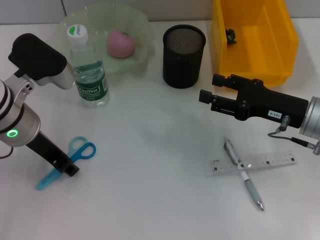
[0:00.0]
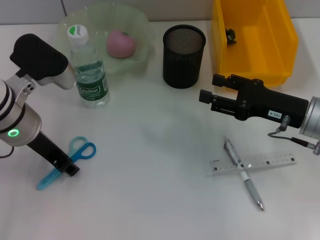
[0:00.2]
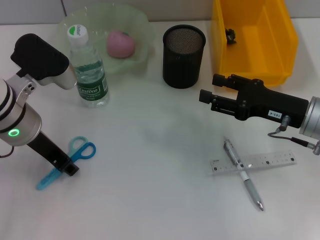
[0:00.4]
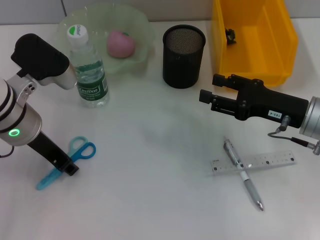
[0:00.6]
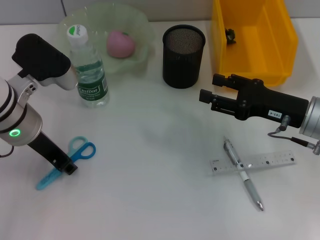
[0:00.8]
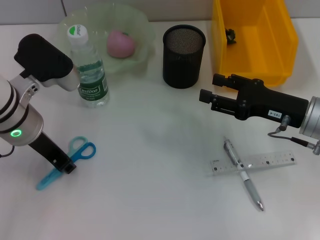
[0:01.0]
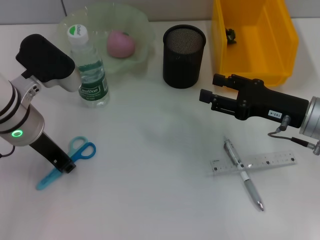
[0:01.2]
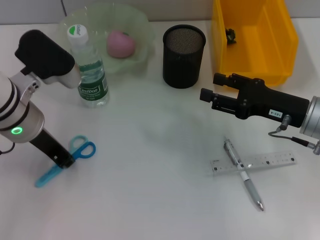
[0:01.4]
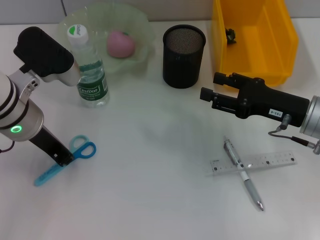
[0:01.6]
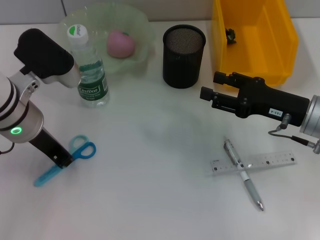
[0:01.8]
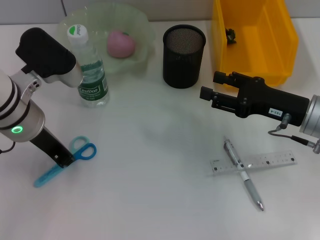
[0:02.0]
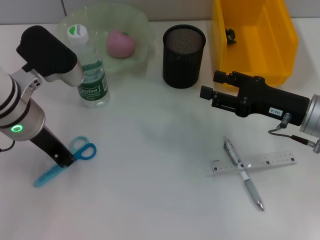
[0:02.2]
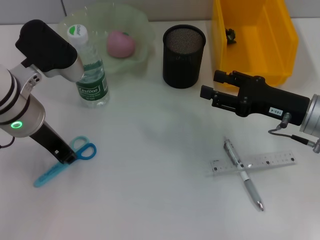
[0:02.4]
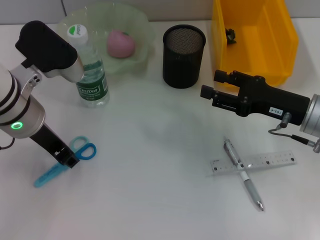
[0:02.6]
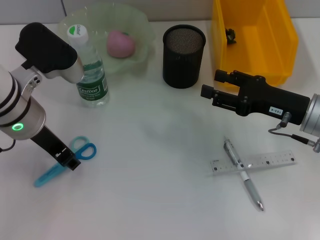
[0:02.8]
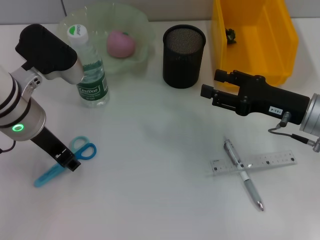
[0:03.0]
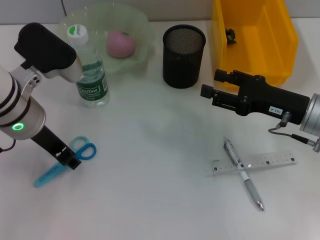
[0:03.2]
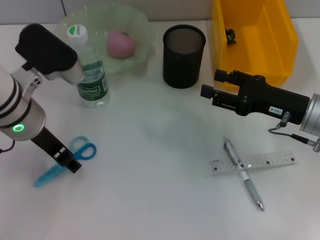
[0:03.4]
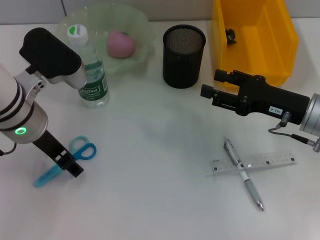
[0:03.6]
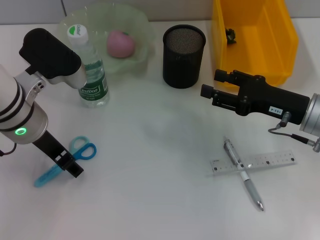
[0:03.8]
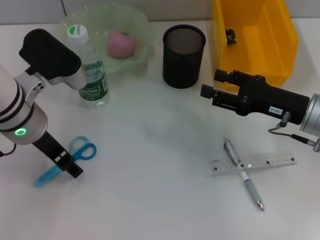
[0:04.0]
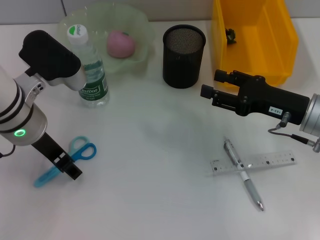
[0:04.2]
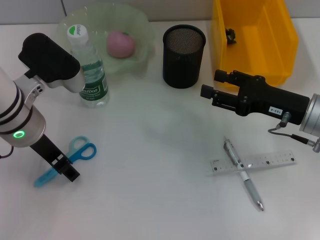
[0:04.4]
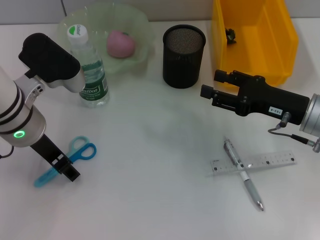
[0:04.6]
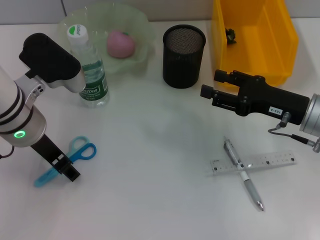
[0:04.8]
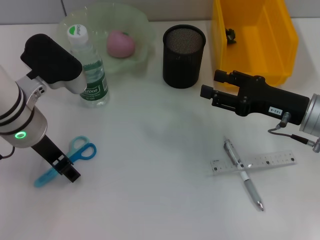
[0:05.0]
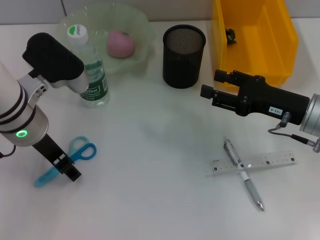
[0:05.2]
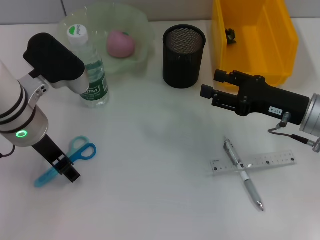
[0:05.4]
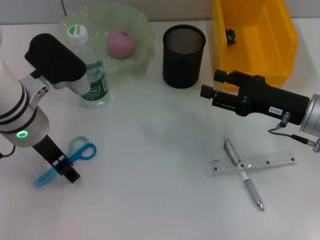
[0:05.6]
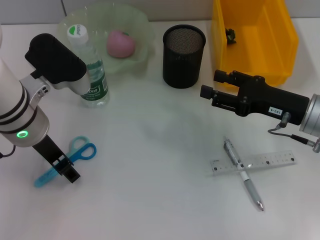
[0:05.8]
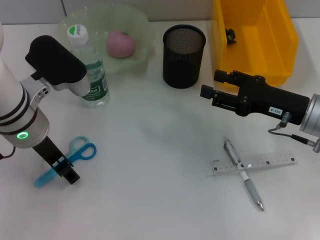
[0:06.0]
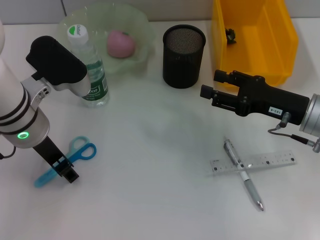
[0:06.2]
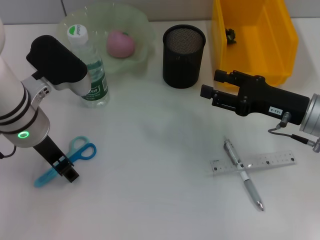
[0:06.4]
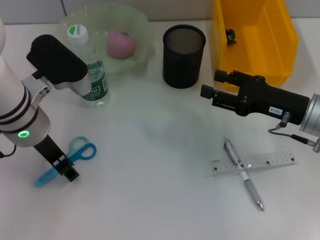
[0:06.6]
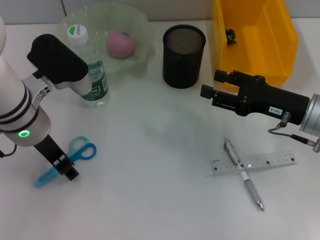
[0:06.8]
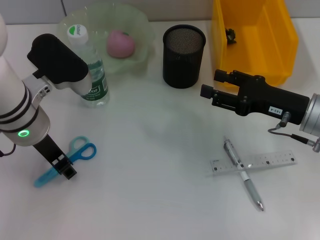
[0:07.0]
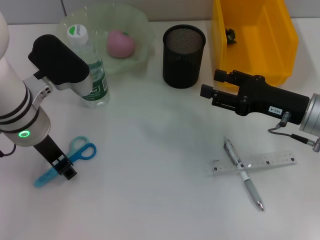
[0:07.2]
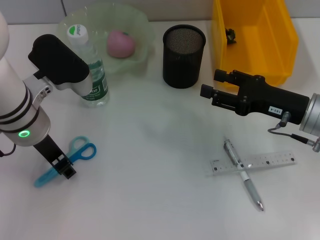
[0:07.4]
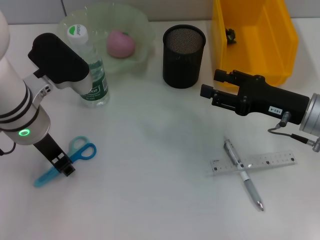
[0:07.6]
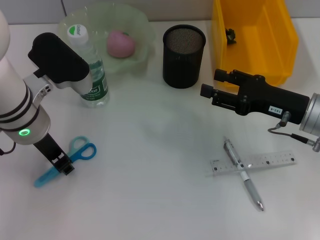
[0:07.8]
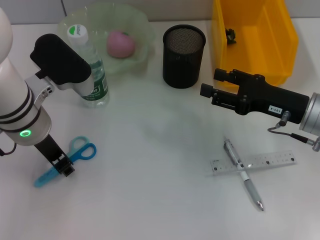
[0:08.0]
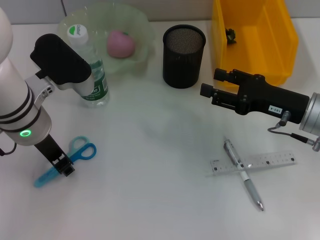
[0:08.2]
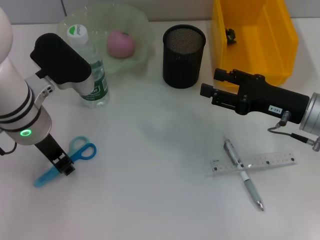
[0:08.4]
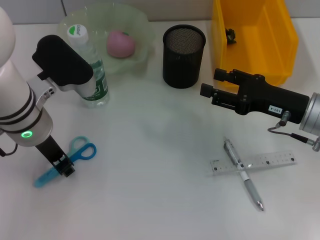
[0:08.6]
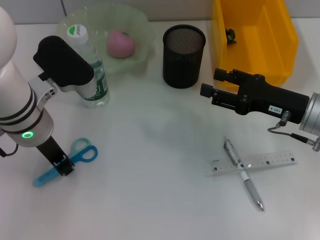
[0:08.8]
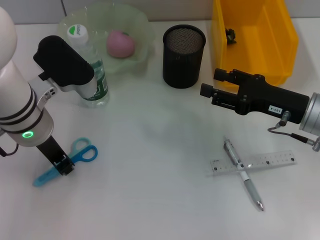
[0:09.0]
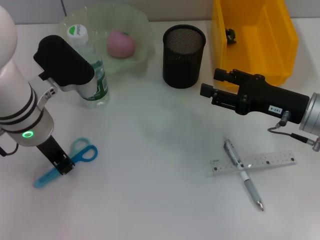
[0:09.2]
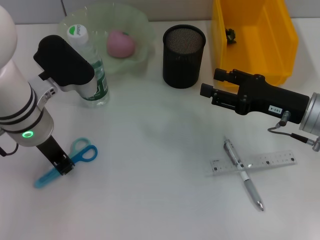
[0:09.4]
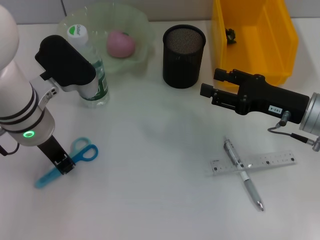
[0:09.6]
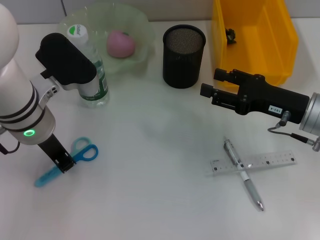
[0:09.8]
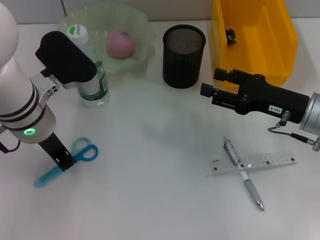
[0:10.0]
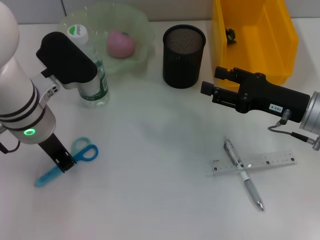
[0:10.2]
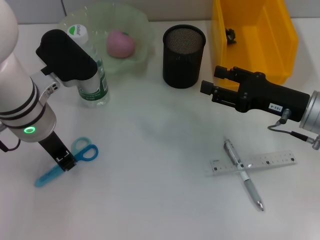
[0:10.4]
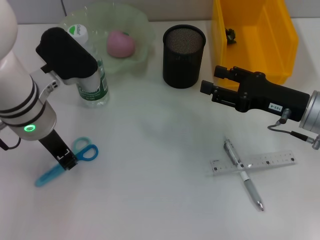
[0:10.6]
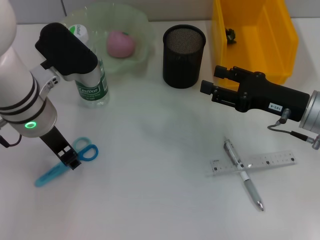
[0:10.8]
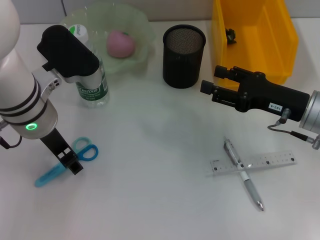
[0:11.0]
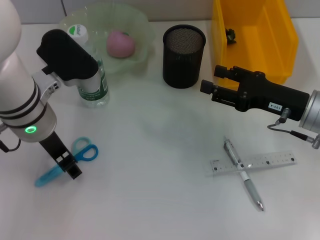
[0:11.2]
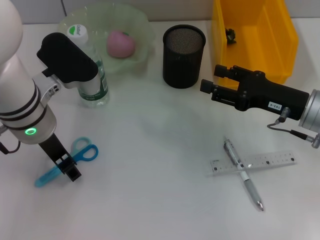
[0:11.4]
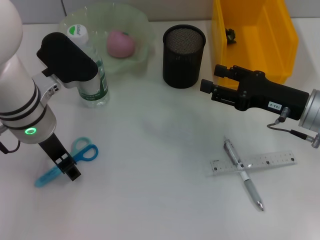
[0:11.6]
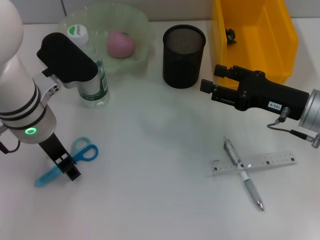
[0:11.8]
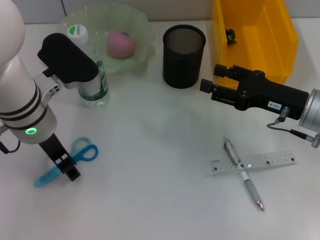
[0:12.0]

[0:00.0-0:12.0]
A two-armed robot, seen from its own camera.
0:00.0 to 0:01.6: The left gripper closes.
0:01.6 to 0:03.0: The left gripper opens up.
0:03.0 to 0:04.4: The left gripper opens.
0:04.4 to 0:06.0: Both grippers stay about where they are.
0:06.0 to 0:07.6: The left gripper closes its fingers.
0:07.6 to 0:10.4: Neither gripper changes place.
0:10.4 to 0:12.0: The left gripper opens up.

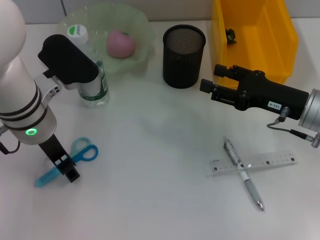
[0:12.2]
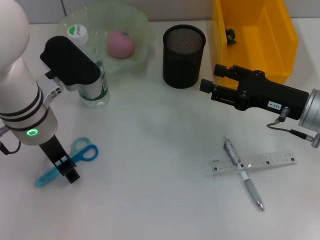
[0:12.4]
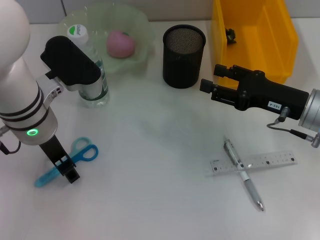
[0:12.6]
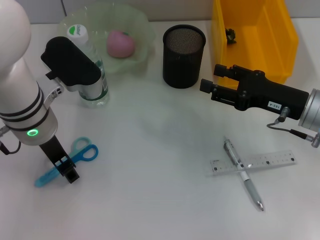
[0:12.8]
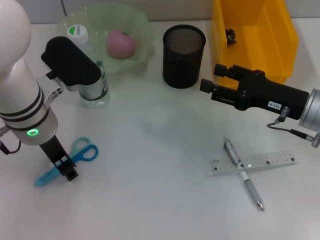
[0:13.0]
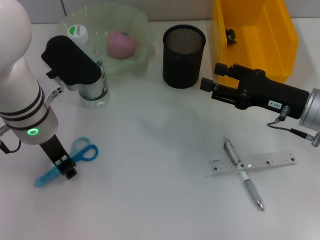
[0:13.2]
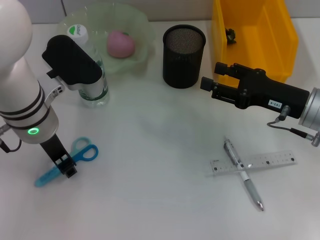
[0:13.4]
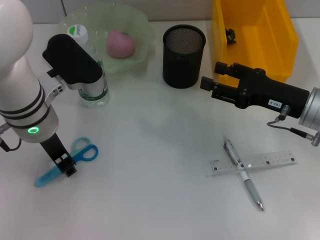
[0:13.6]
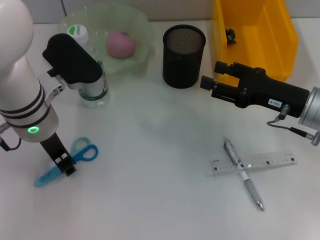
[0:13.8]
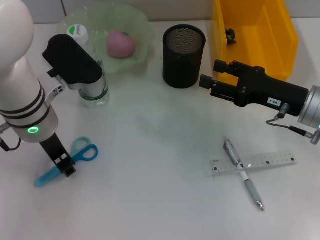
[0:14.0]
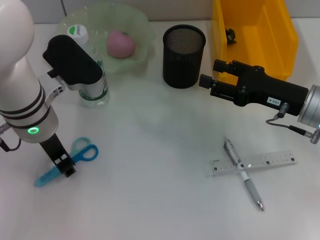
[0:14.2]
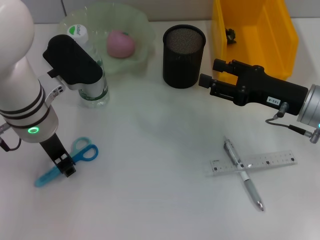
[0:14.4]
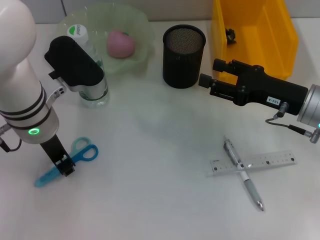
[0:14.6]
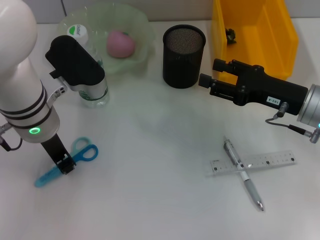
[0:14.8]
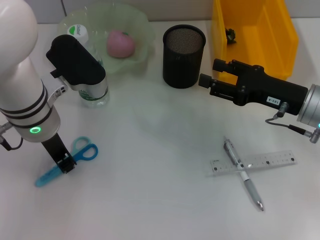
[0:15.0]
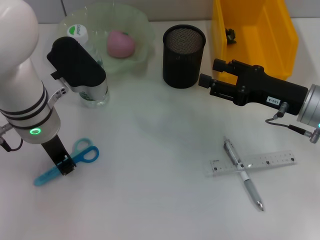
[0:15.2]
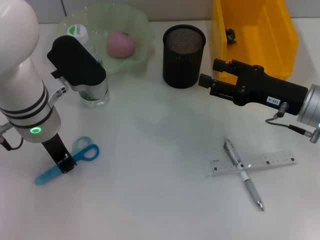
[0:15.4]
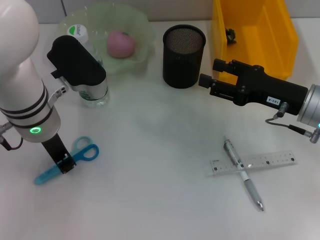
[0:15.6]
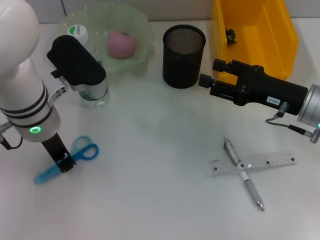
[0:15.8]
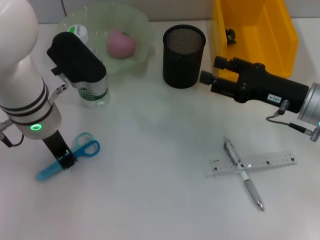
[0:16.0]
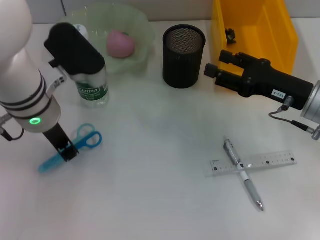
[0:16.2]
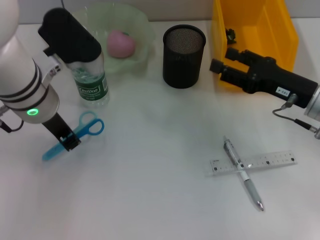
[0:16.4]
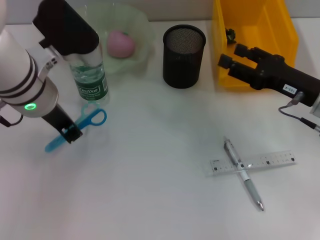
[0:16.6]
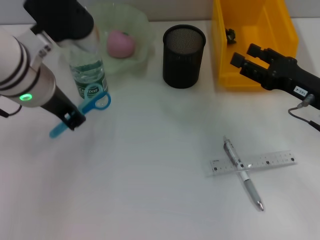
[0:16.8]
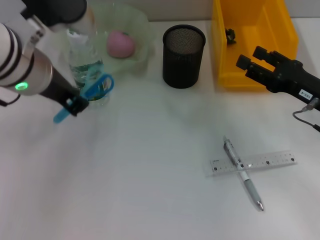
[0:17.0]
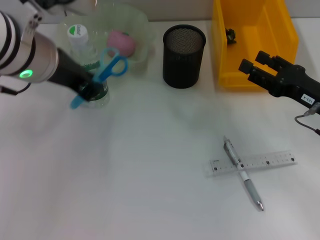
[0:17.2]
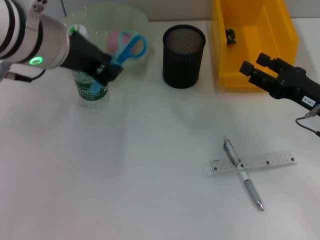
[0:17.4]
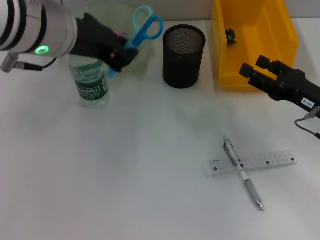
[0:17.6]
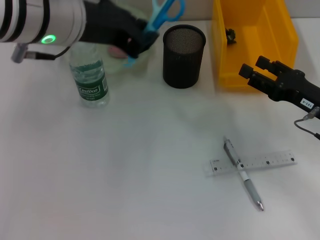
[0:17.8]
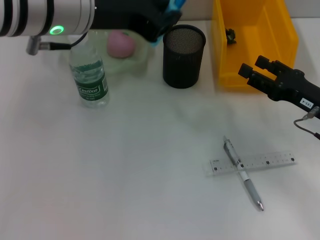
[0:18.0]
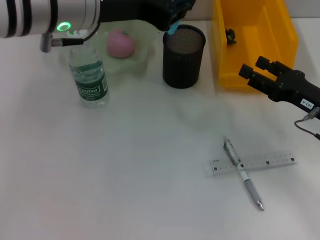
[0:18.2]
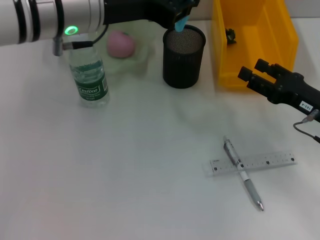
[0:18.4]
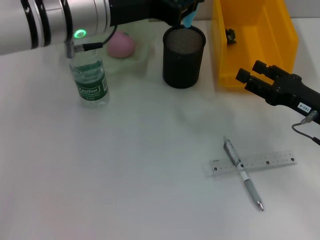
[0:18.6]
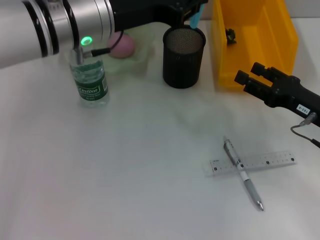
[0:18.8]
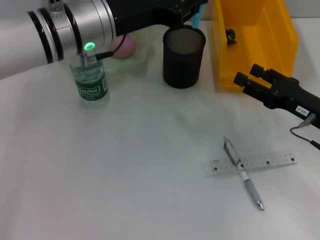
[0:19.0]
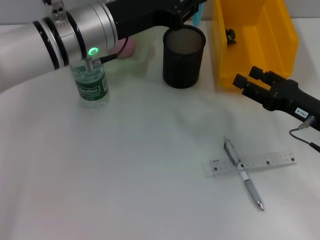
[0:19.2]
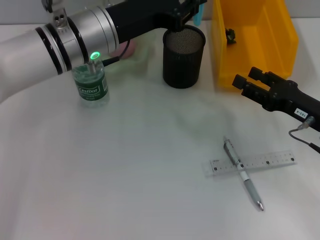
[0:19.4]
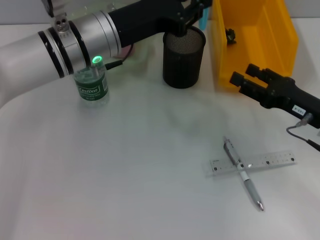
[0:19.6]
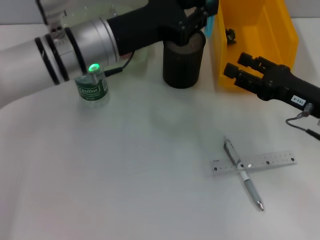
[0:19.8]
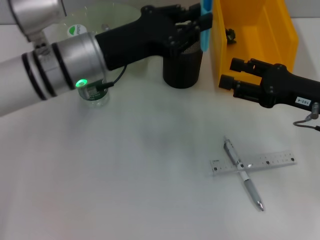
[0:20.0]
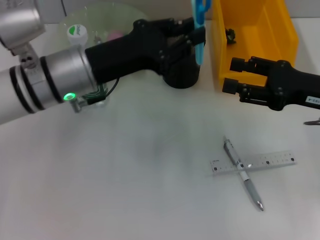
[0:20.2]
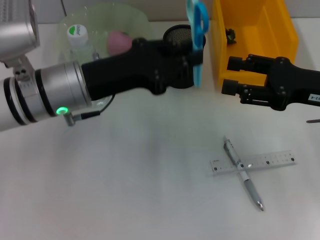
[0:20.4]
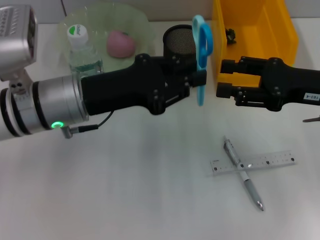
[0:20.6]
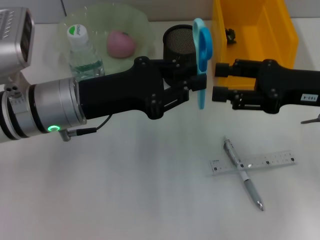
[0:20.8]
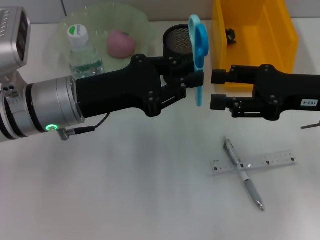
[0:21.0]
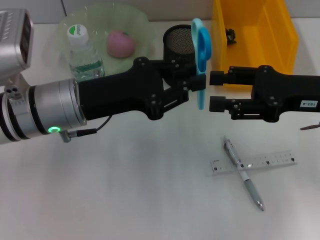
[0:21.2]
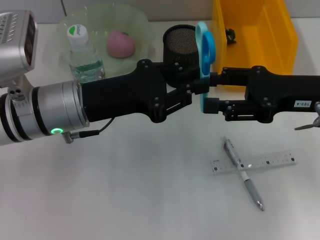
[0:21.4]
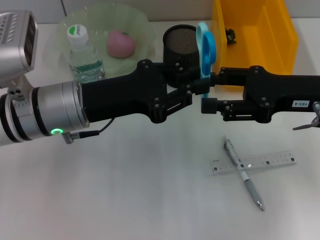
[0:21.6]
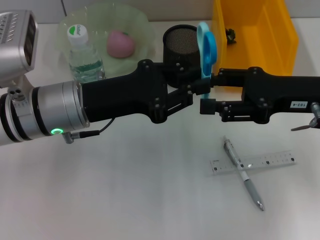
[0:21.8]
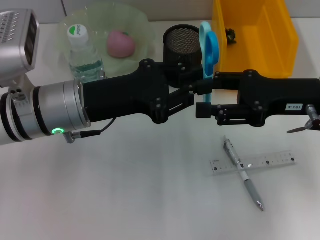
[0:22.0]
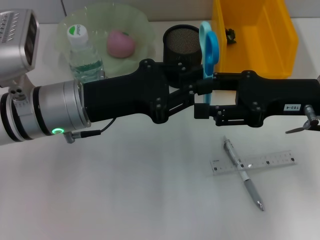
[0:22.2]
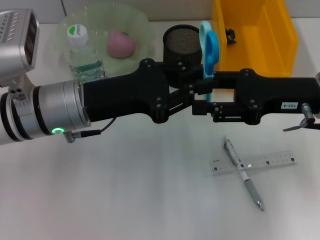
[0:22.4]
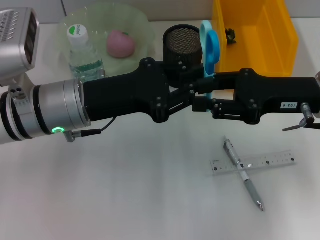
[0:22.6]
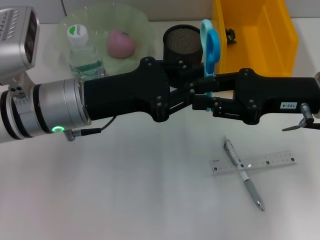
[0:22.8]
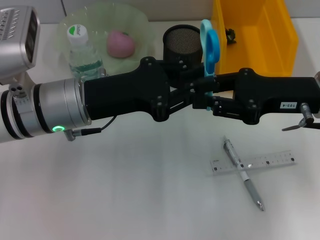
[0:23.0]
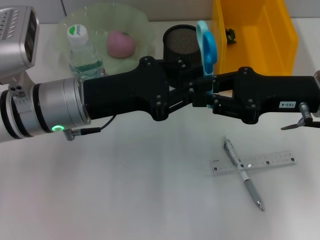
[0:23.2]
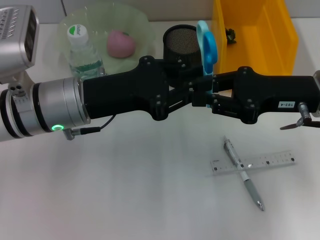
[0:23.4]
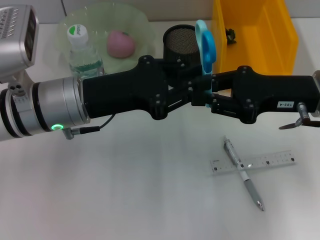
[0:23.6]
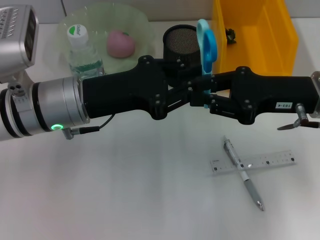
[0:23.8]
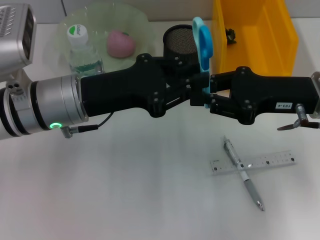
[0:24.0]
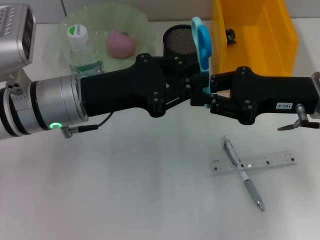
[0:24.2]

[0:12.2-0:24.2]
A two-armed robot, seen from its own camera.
Step, 0:12.2 to 0:15.4: Grab the blue scissors with the left hand.
0:12.2 to 0:13.8: The left gripper closes.
0:13.8 to 0:15.2: Both grippers stay about where they are.
0:16.6 to 0:18.2: The left gripper is displaced upward by roughly 10 cm.
0:18.2 to 0:19.8: The left gripper goes some 10 cm downward.
0:19.8 to 0:21.2: The left gripper heads backward, covering roughly 5 cm; the right gripper shifts roughly 5 cm upward.
0:21.2 to 0:22.6: The grippers stay close to where they were, moving slightly.
0:22.6 to 0:24.2: The right gripper closes up.
